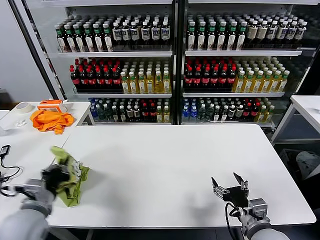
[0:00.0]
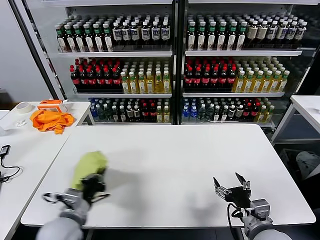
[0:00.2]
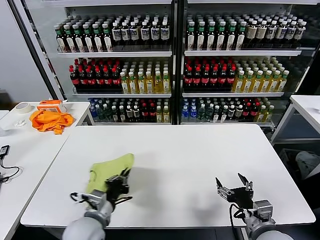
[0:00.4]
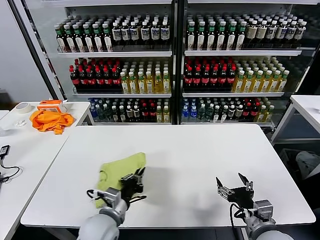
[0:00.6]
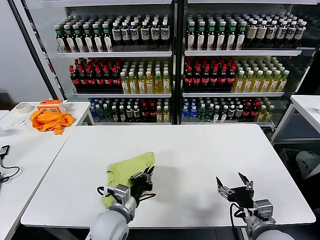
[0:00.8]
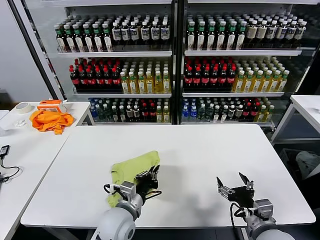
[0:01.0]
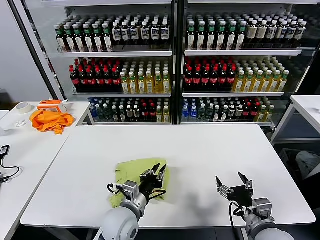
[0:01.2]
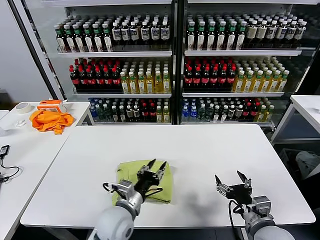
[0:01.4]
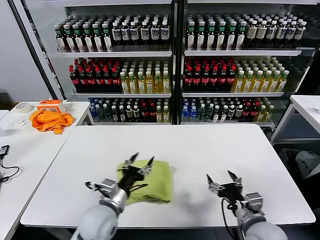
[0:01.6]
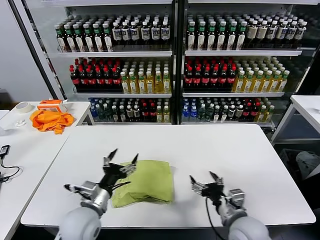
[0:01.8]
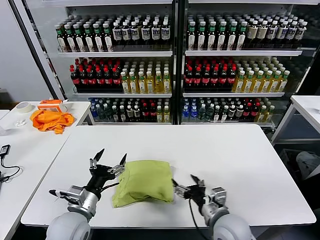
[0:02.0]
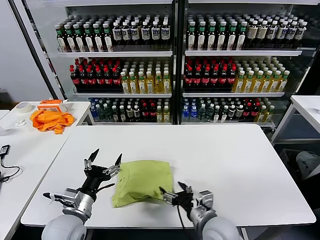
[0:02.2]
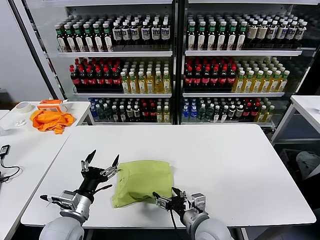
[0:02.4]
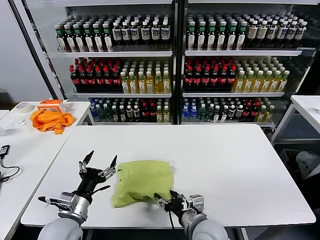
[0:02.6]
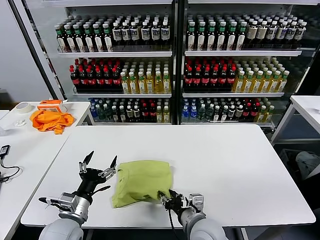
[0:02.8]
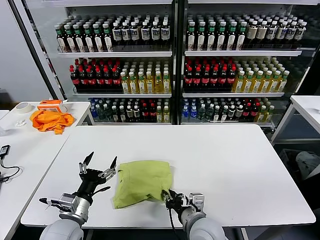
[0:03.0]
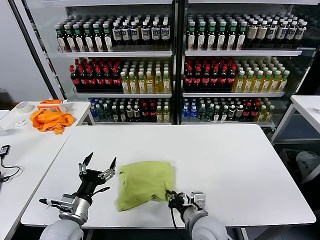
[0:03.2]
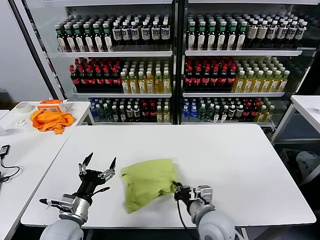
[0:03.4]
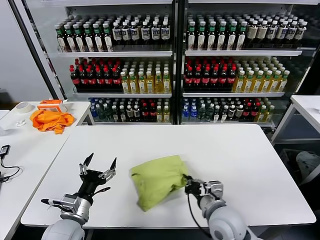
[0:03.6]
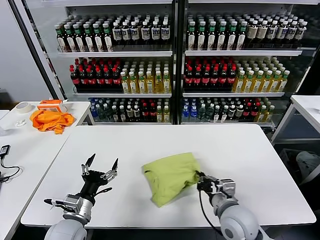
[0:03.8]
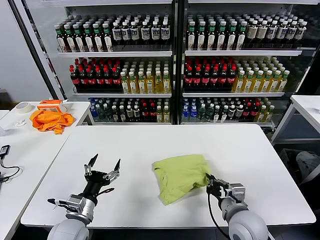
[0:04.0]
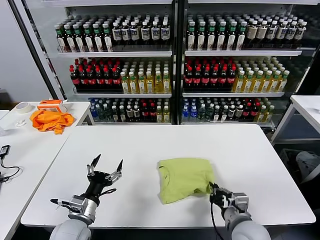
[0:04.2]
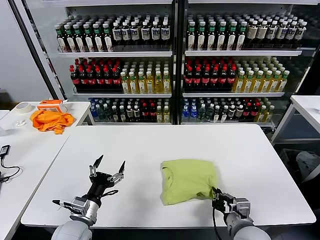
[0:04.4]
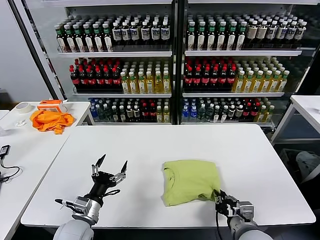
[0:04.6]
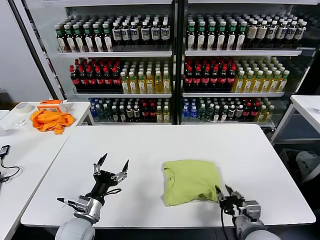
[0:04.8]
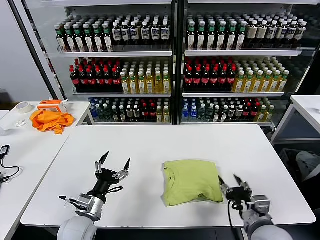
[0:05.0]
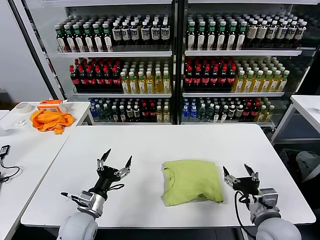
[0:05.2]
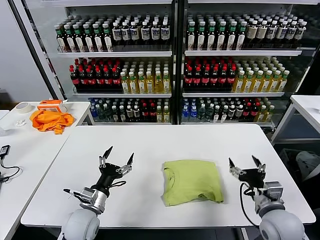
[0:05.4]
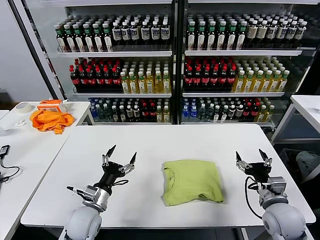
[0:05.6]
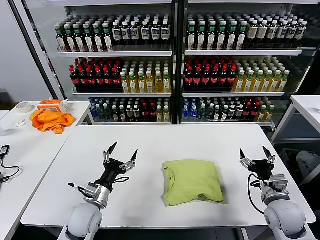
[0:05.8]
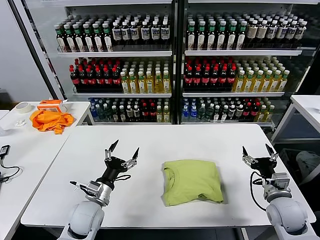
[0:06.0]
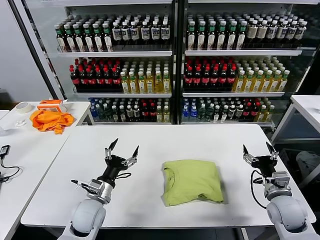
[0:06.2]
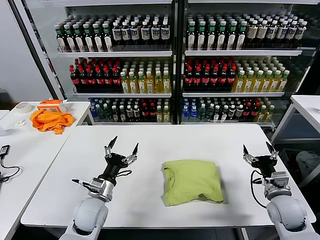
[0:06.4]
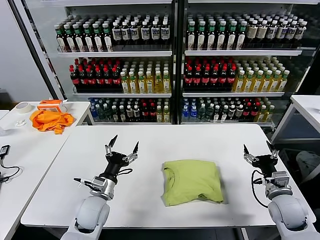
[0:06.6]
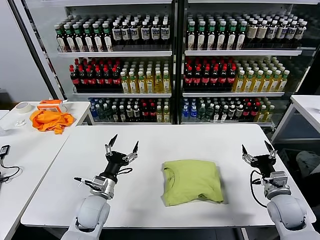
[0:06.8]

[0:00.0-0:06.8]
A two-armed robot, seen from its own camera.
Task of the whole recording: fold and organize the clothes.
Step, 0:01.4 to 0:04.6: Drag the clothes to the center of the table.
0:00.0 to 0:01.4: The left gripper shifts about 25 cm to the right, and opens its fingers.
0:01.4 to 0:02.8: The two grippers go approximately 15 cm to the left. The left gripper opens, while the right gripper closes.
0:02.8 to 0:04.0: The right gripper shifts approximately 10 cm to the right, and closes.
0:04.0 to 0:05.4: The right gripper heads to the right, covering approximately 10 cm, and opens up.
0:05.4 to 0:06.8: The right gripper travels to the right and forward by about 10 cm, while the left gripper moves some 5 cm.
